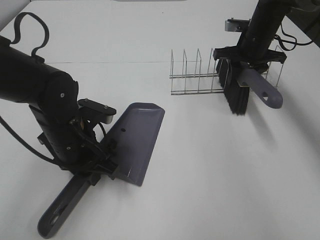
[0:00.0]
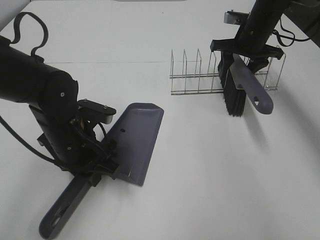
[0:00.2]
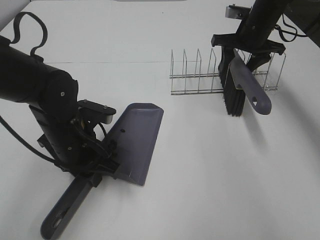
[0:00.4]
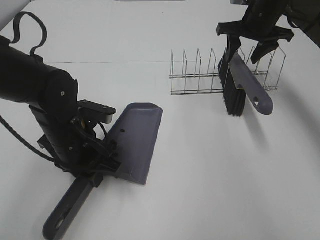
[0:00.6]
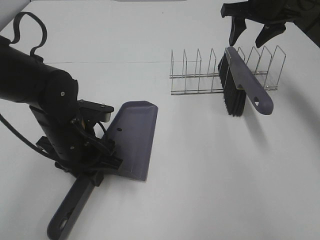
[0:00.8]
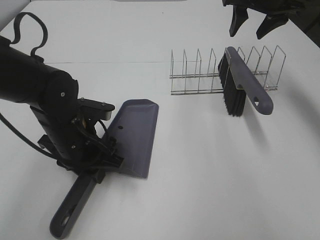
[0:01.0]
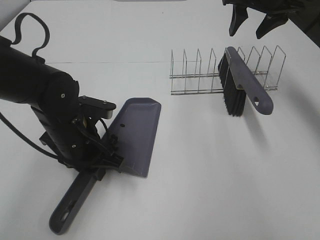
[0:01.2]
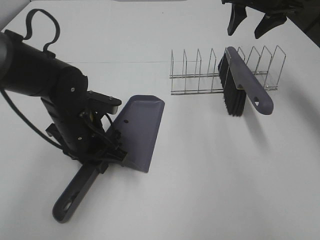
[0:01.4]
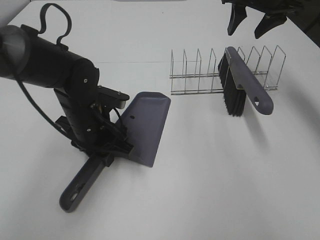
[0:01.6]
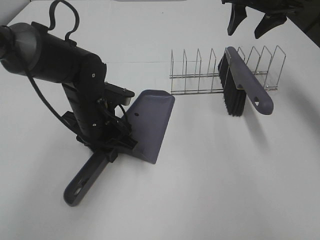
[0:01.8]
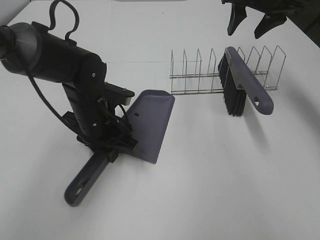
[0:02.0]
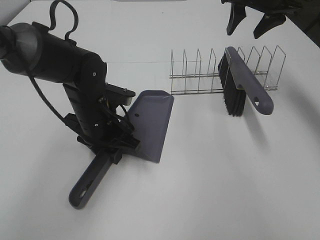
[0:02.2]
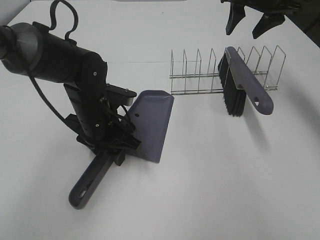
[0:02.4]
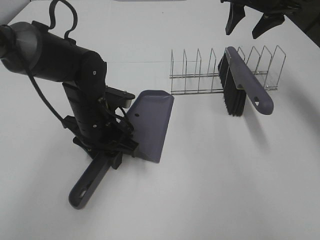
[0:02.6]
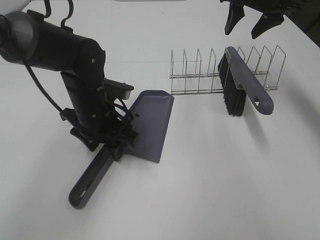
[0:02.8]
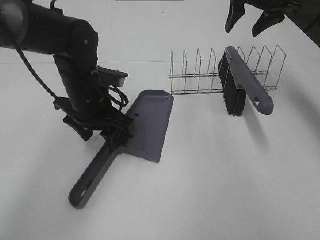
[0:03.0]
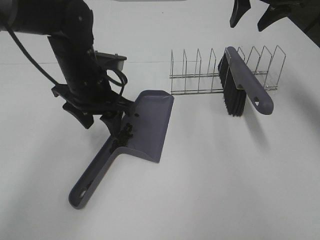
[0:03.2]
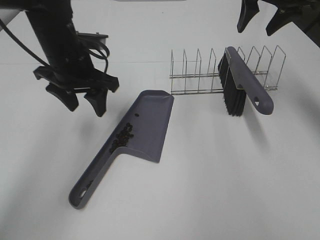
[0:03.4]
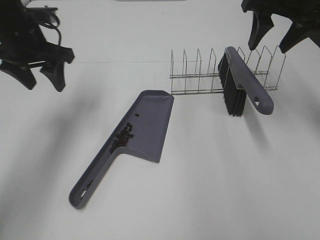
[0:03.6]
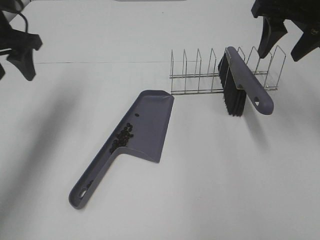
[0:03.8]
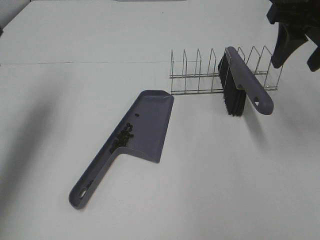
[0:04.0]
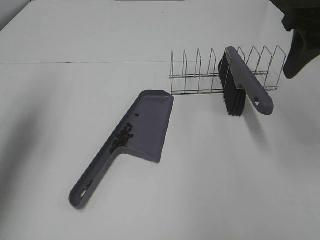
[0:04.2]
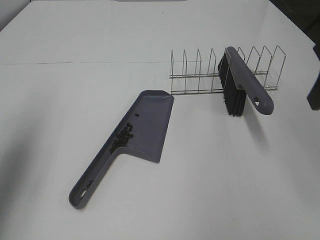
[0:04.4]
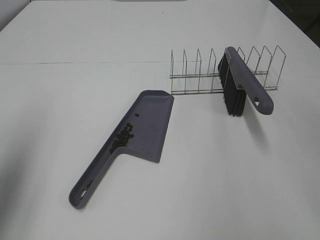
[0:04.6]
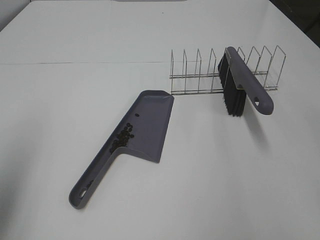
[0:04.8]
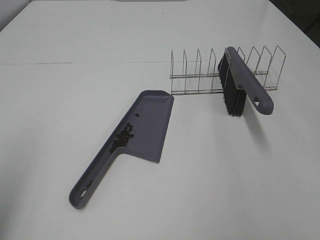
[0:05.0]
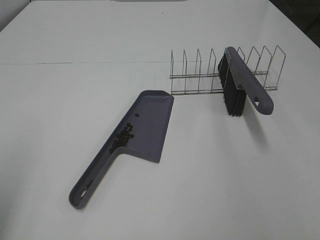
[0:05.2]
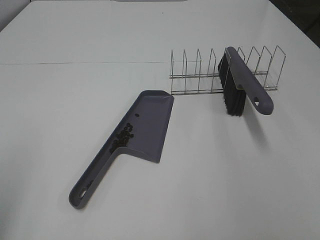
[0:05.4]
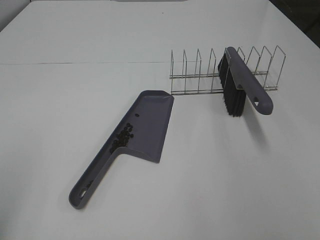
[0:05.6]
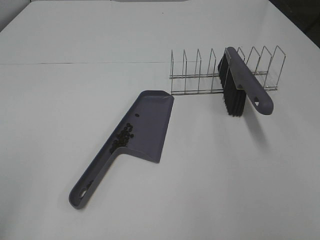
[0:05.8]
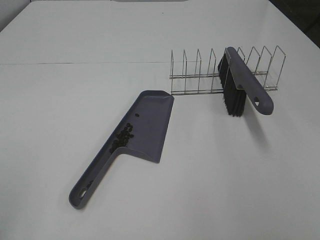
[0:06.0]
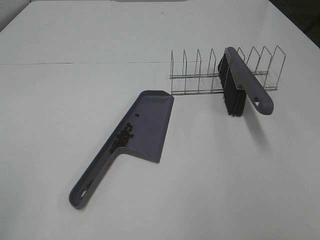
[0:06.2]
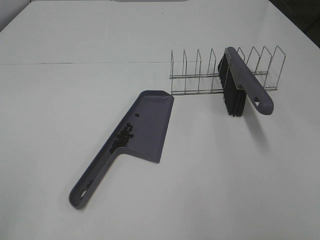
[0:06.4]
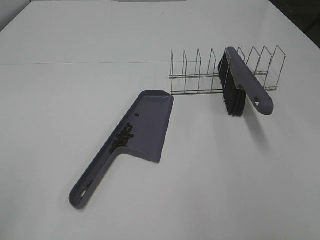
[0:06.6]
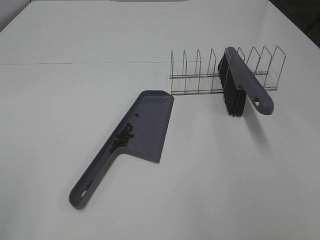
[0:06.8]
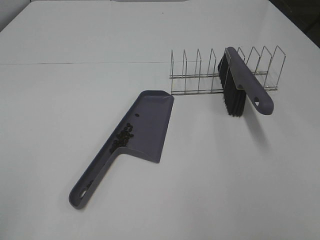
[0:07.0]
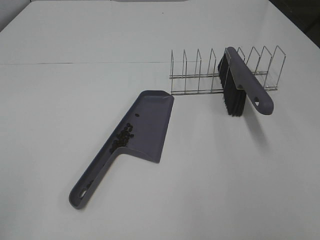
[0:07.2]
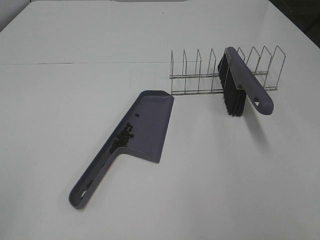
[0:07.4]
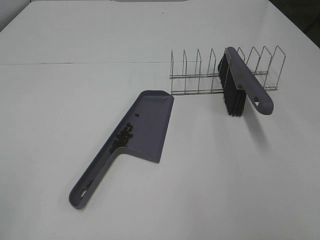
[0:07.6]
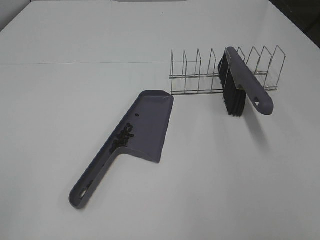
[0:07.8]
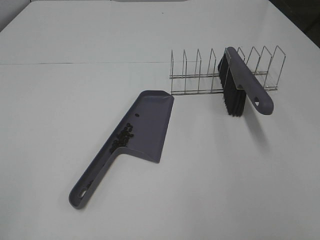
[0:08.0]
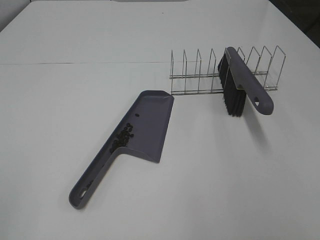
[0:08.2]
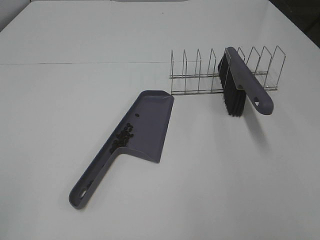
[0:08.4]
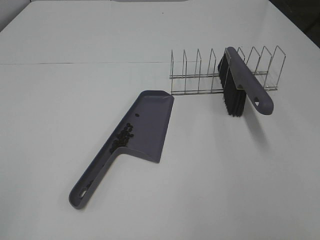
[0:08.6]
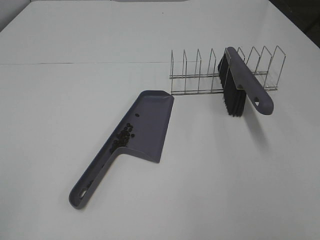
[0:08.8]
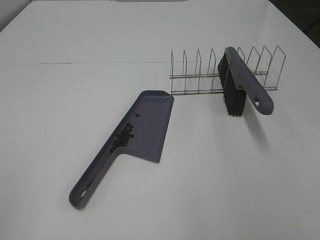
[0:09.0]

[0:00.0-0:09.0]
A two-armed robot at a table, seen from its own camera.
Task of the whole recording: Sweep Coffee Bean.
Step, 0.4 to 2.8 s: Left hand:place the dustpan on the table.
0.0 to 1.6 s: The right gripper travels upward by approximately 10 cm.
1.6 to 3.0 s: The left gripper opens up.
3.0 to 4.4 s: The right gripper travels backward by approximately 25 cm; the left gripper shifts about 25 cm to the left and upward.
4.4 to 6.0 s: The left gripper travels backward by about 25 cm.
7.6 to 9.0 s: The two grippers keep their place.

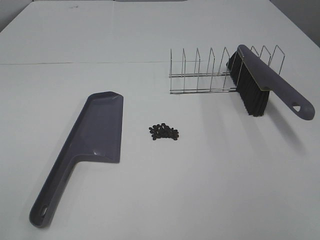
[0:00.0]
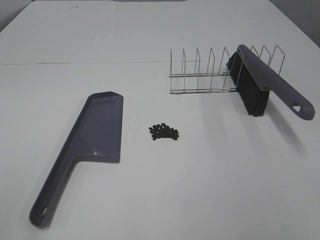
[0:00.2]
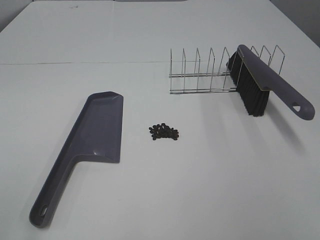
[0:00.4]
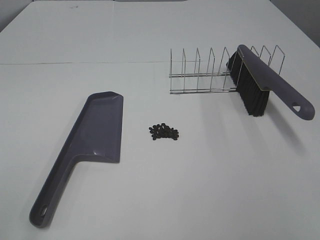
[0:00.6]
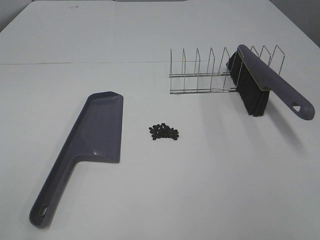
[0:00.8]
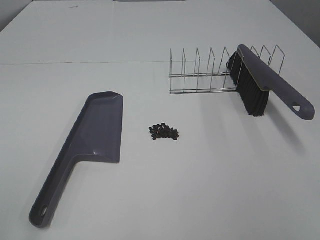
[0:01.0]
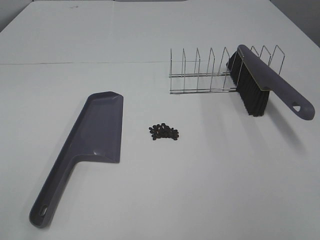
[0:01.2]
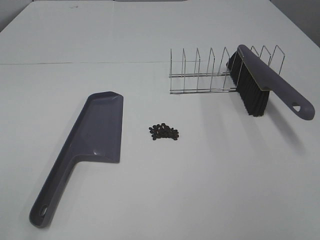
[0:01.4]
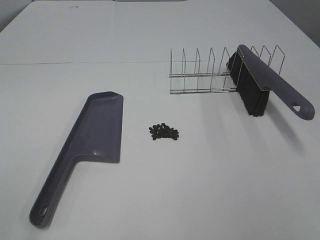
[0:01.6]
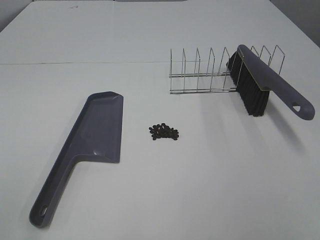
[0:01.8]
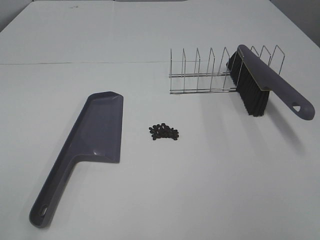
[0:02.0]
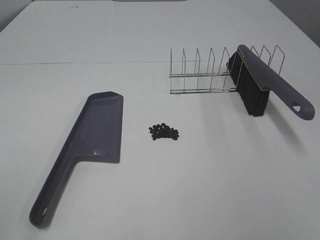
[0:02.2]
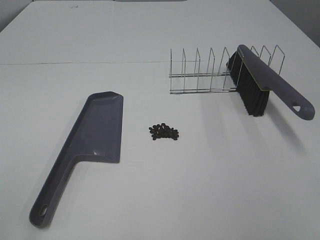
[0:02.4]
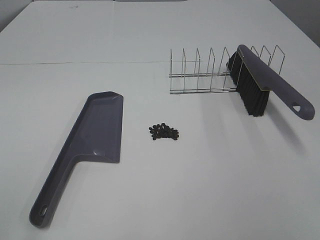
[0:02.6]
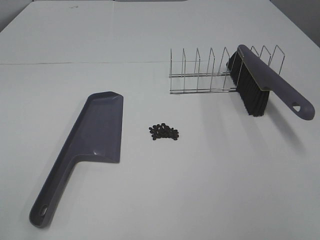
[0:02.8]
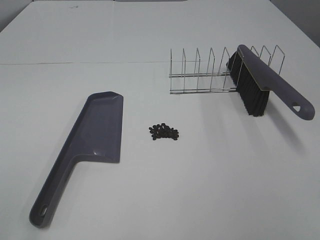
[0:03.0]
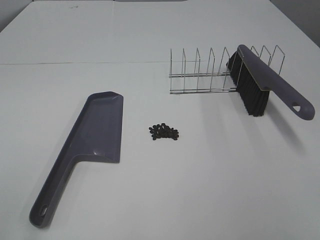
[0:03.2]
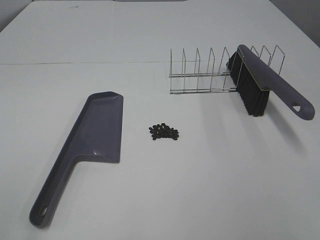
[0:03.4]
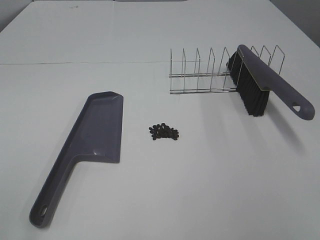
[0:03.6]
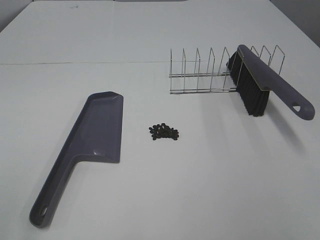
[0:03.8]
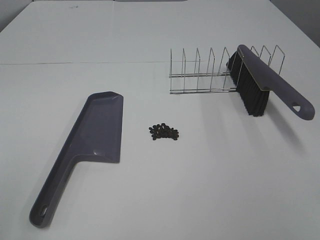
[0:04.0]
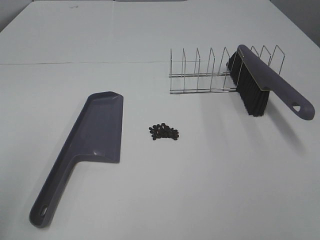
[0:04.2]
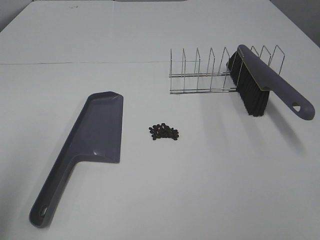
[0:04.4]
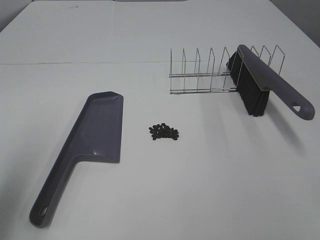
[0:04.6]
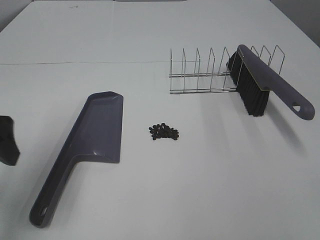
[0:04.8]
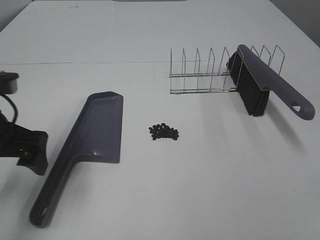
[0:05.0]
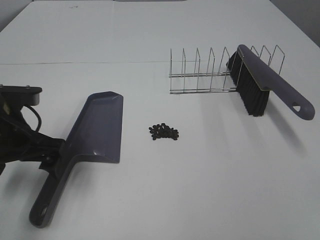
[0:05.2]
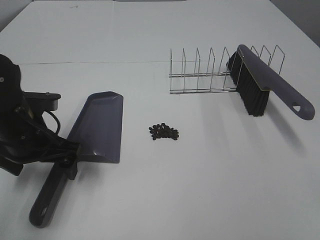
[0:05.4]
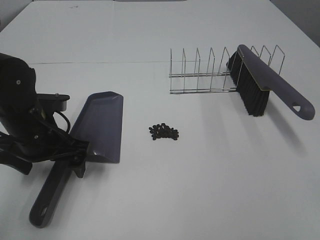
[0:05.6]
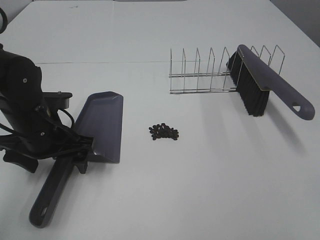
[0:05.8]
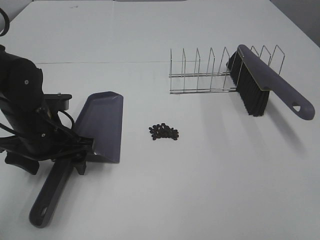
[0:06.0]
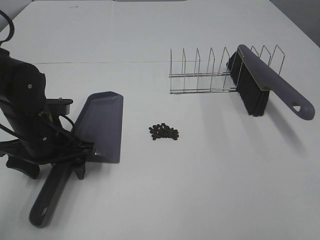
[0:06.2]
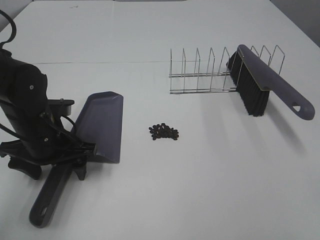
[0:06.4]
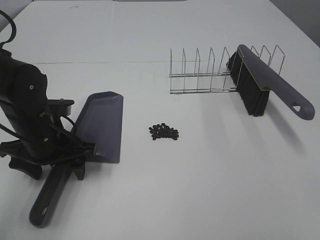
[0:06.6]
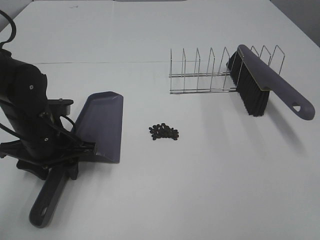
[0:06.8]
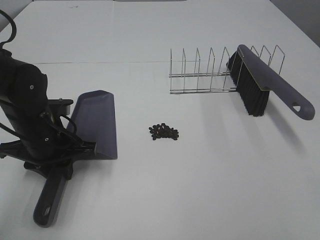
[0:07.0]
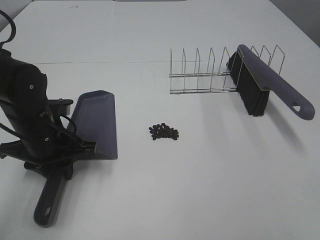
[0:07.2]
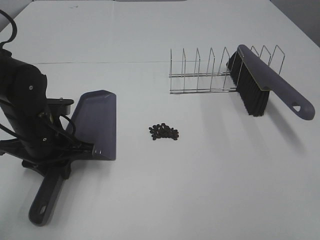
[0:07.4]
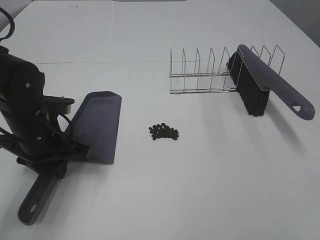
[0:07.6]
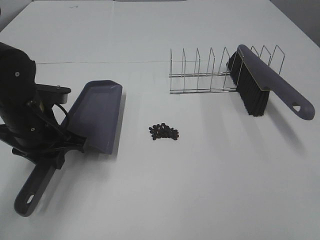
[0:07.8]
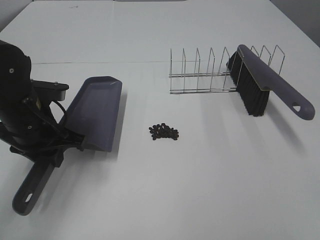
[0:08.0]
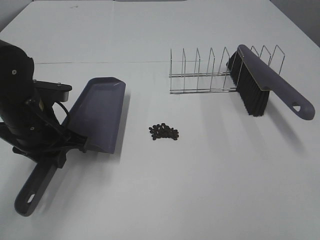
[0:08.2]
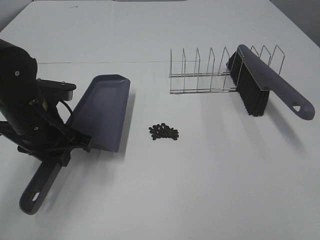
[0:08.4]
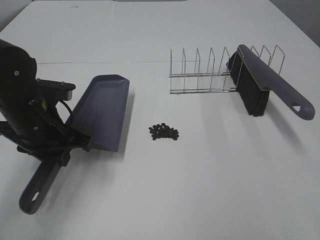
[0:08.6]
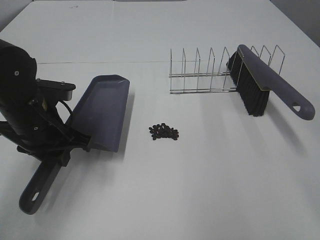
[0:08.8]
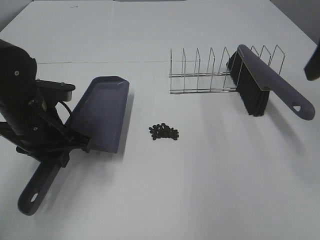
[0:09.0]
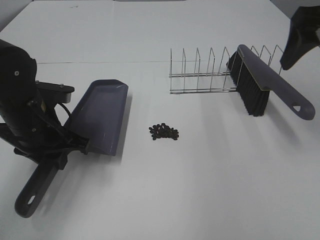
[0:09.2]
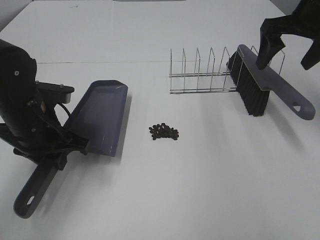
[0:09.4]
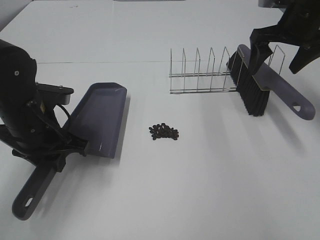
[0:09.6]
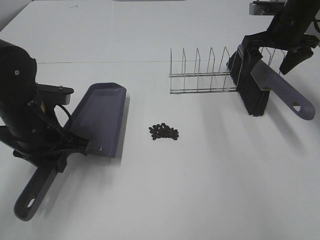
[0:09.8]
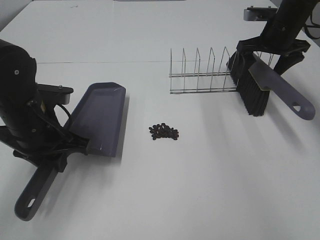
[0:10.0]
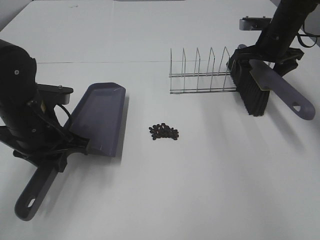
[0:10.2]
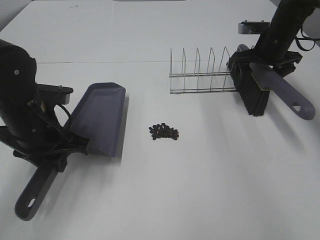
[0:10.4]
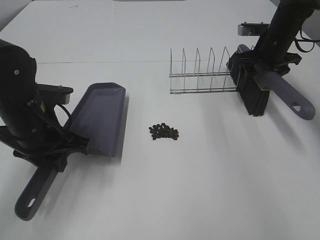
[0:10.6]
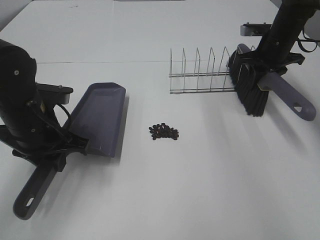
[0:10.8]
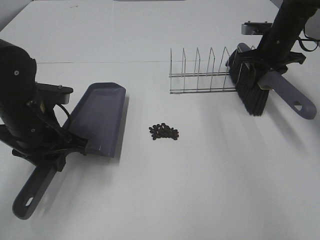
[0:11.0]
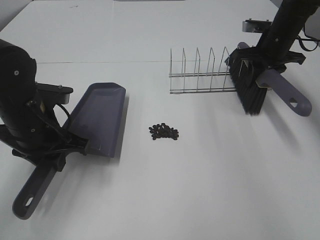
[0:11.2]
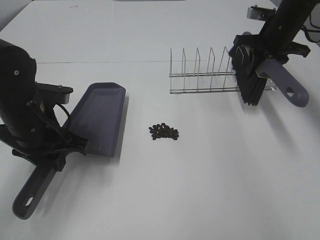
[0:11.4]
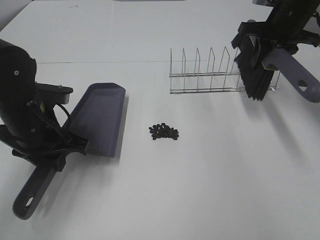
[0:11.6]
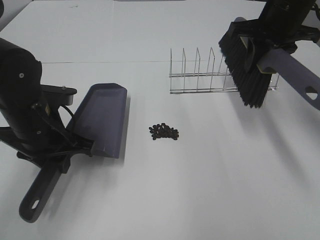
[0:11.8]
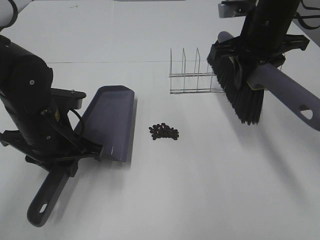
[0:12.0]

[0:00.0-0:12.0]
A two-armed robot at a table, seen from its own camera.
Task of the whole recording: Sweep Coffee Bean.
Step, 0.0 to 7.0 s: Left hand: grab the dustpan.
Step, 8.4 to 10.8 s: Right hand:grab the broom.
0.0 to 3.0 s: Both grippers stay about where they are.
3.0 to 4.4 s: The left gripper is displaced forward by roughly 10 cm.
4.4 to 6.0 s: The left gripper shifts some 30 cm downward, forward and to the right.
6.0 to 7.6 s: The left gripper closes.
7.6 to 9.0 s: The right gripper is displaced forward by approximately 25 cm, and opens its fingers.
9.0 to 10.4 s: The right gripper is displaced forward and downward by some 30 cm.
10.4 to 12.0 s: The right gripper shifts roughly 15 cm backward, to the left and upward, and closes.

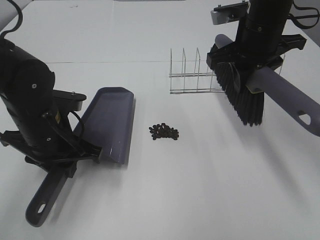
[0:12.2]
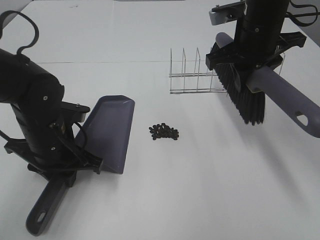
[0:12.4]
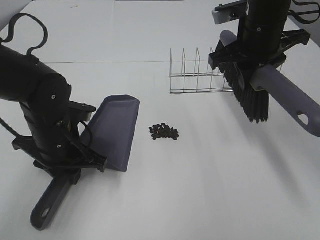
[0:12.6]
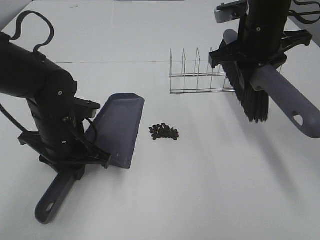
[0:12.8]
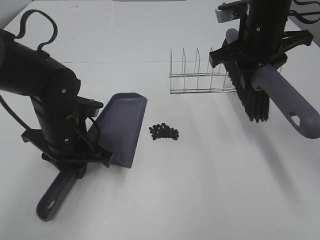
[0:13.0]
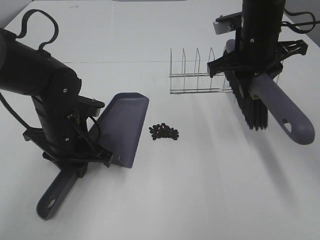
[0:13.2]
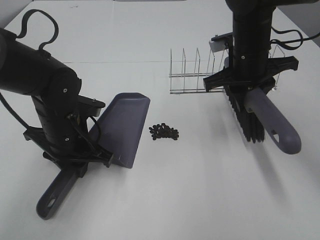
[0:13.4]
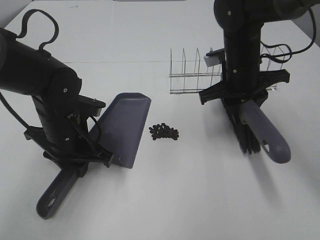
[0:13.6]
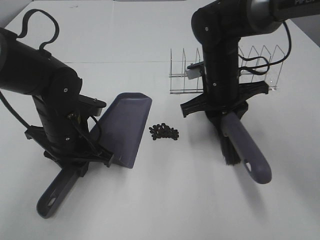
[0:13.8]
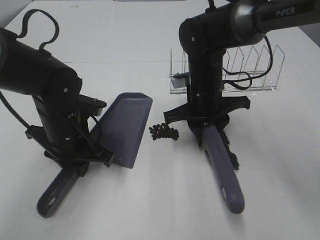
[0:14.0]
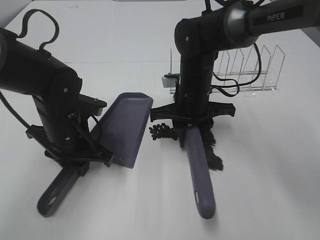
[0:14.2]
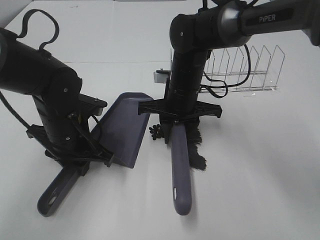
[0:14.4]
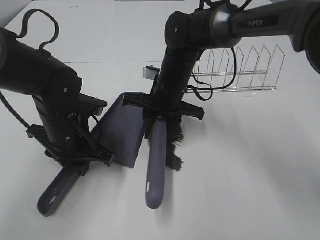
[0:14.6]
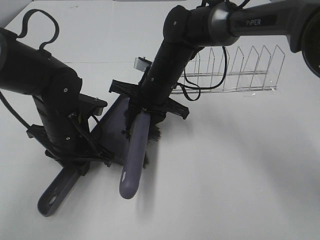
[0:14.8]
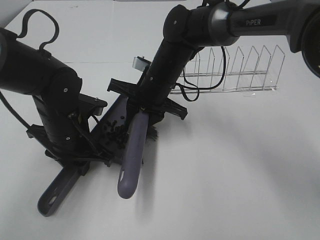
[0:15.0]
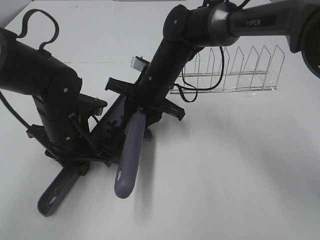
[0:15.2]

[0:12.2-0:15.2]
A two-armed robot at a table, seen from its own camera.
Task of the whole recording: Sweep Coffee Bean.
12.2 to 13.8 s: The right gripper heads downward, covering roughly 10 cm.
13.8 to 15.2 s: The right gripper shifts about 10 cm to the left.
